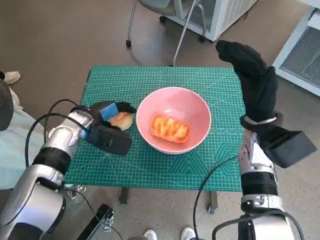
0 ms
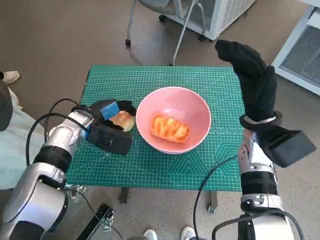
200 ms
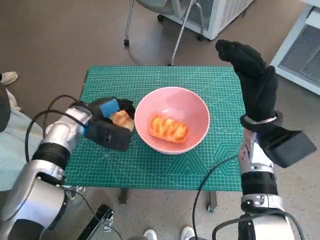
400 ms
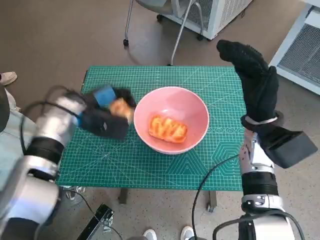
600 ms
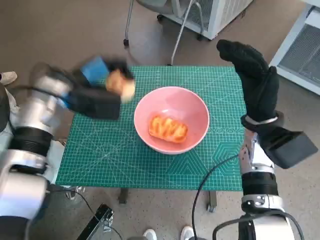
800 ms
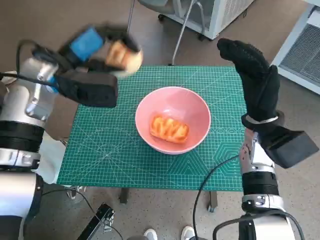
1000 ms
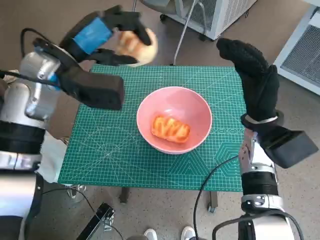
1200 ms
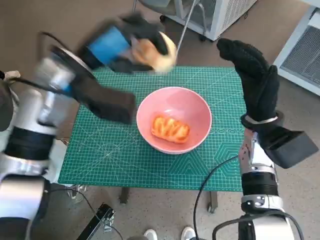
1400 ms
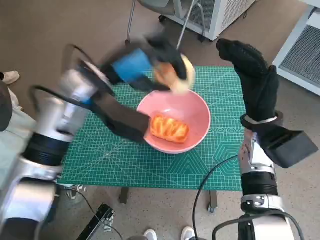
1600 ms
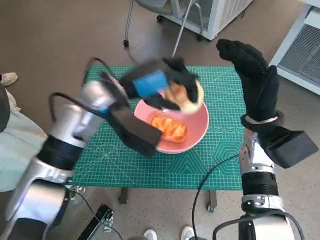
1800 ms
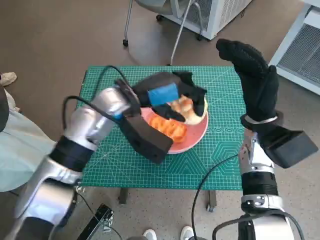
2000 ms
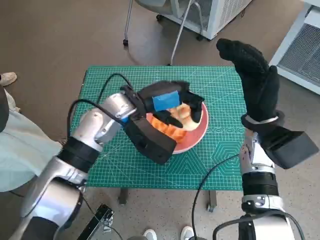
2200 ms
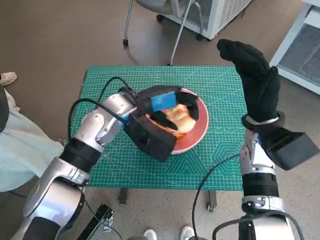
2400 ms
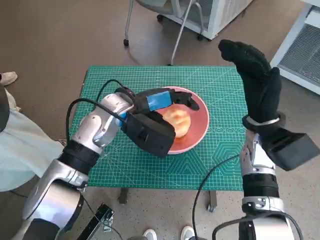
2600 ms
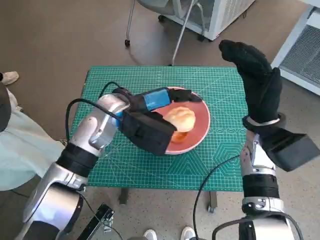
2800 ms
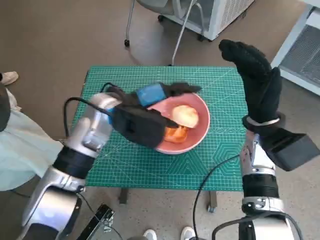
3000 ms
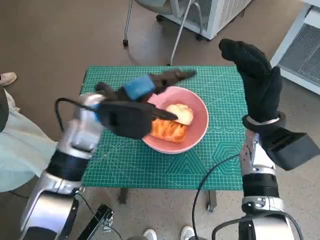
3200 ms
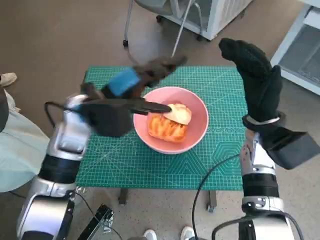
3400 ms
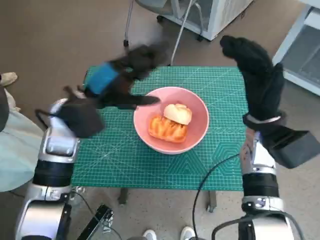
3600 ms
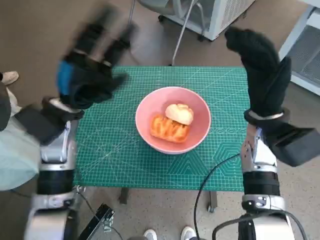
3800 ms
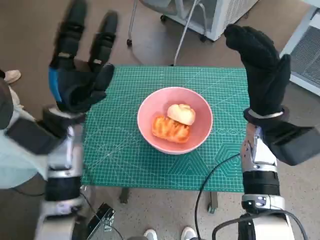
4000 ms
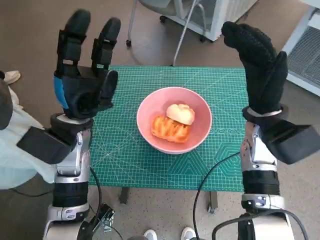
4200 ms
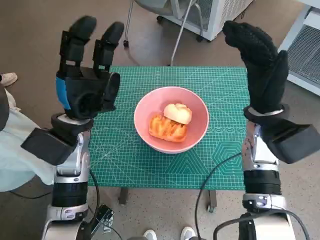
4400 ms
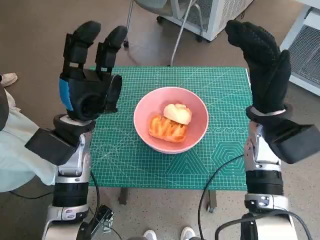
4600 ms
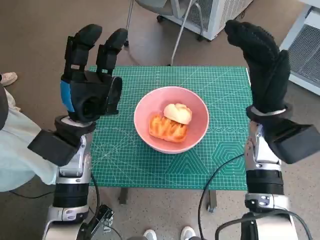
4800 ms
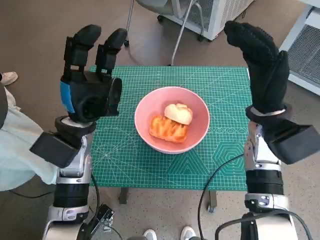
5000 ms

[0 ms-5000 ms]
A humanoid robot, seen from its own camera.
Task of the whole recording: Push the bowl to the center of the table and put the bread into the bowl.
Step, 0 ms to 3000 ms: Place the round bread in pink bowl with left hand.
0 ms to 1600 ms: The left hand shifts about 15 cm upward and to the right.
3400 ms to 5000 ms: The left hand moves about 5 cm.

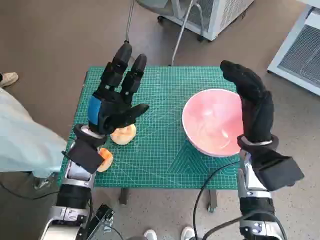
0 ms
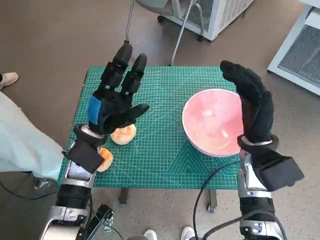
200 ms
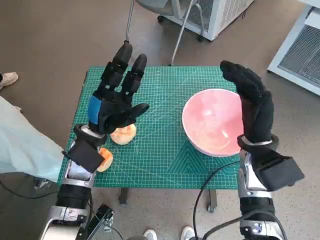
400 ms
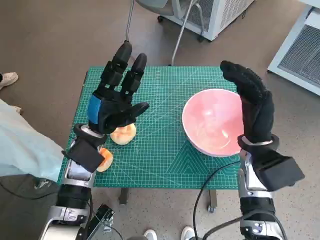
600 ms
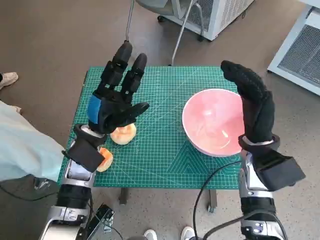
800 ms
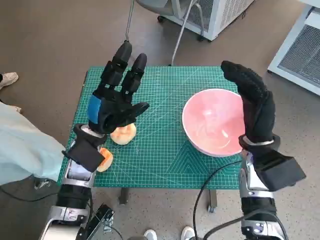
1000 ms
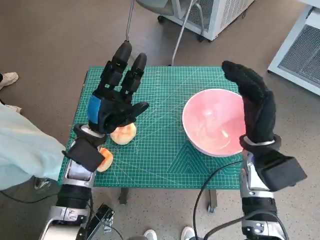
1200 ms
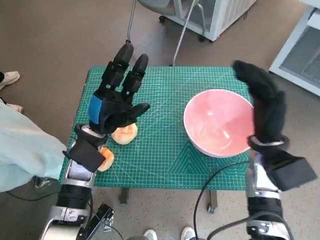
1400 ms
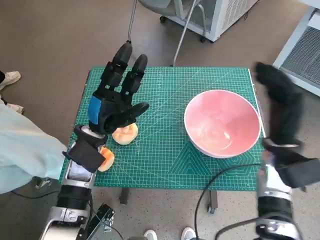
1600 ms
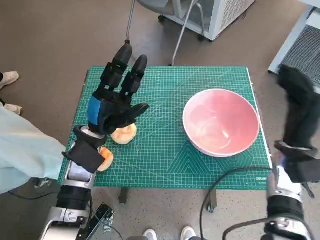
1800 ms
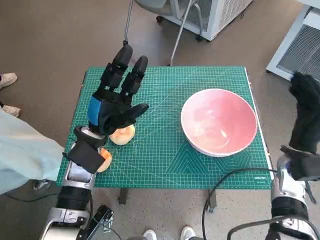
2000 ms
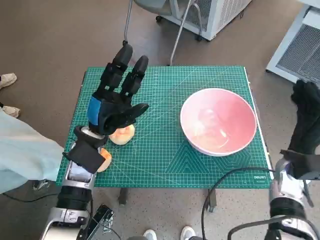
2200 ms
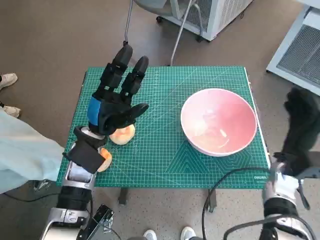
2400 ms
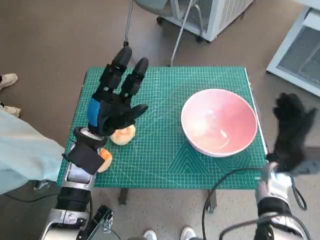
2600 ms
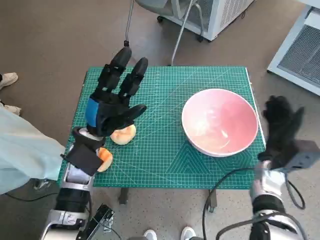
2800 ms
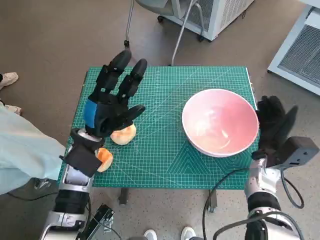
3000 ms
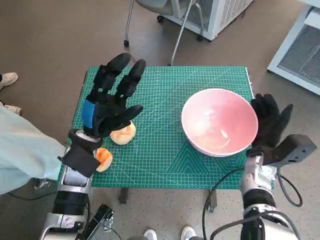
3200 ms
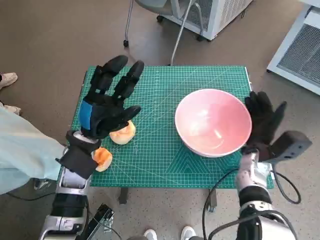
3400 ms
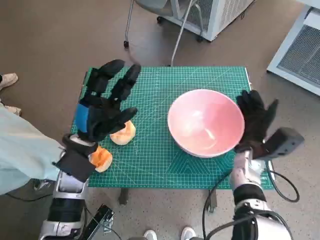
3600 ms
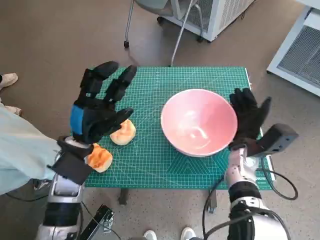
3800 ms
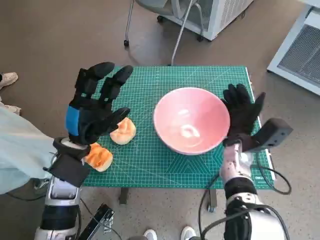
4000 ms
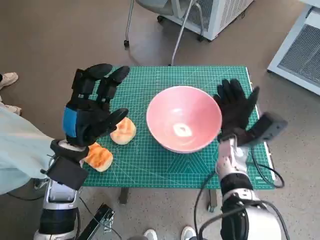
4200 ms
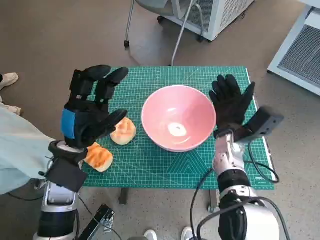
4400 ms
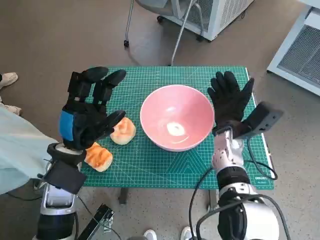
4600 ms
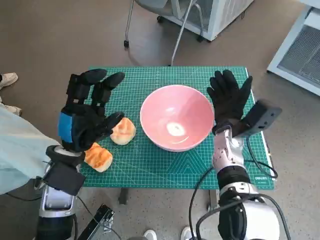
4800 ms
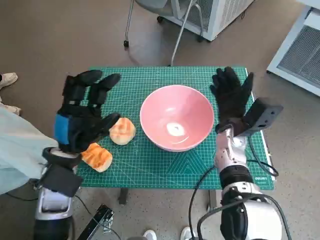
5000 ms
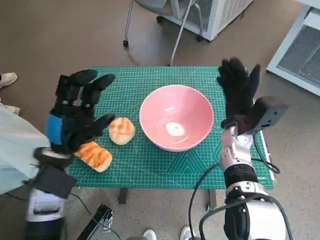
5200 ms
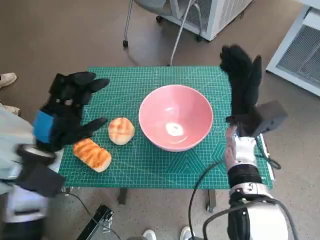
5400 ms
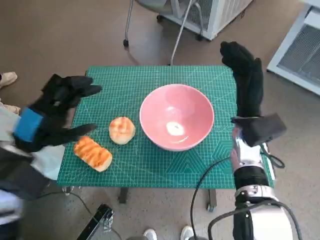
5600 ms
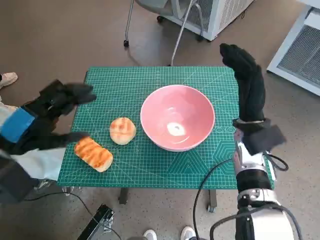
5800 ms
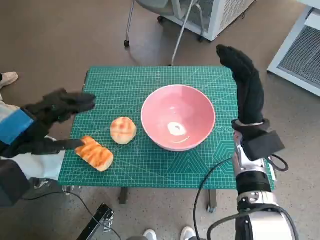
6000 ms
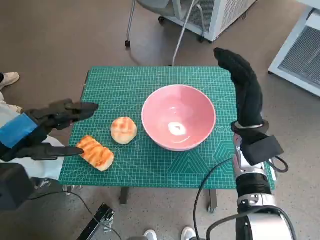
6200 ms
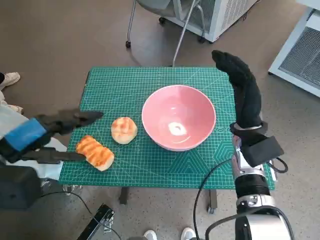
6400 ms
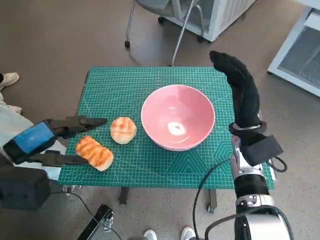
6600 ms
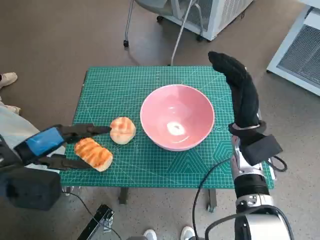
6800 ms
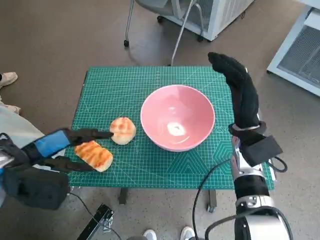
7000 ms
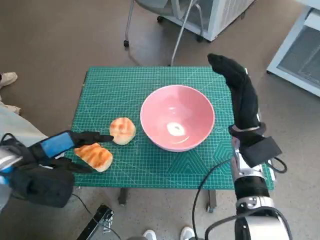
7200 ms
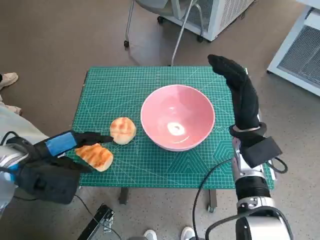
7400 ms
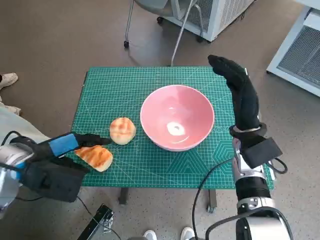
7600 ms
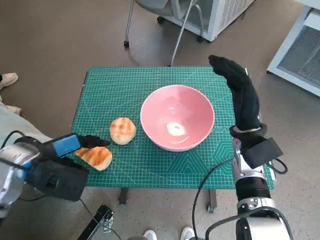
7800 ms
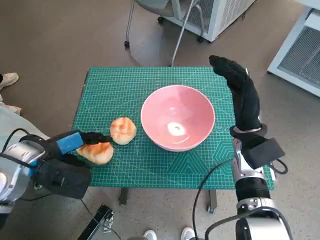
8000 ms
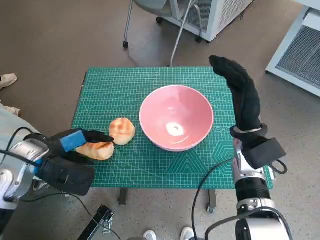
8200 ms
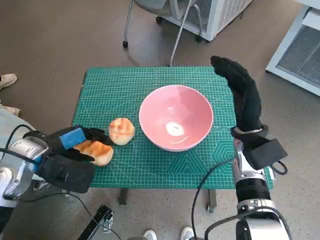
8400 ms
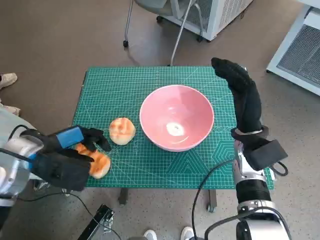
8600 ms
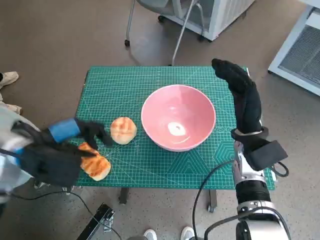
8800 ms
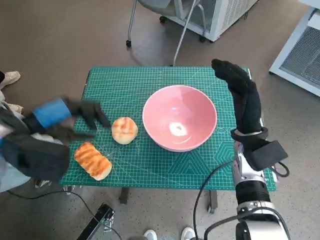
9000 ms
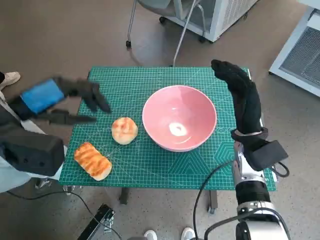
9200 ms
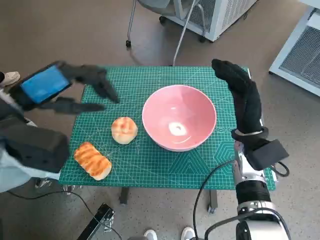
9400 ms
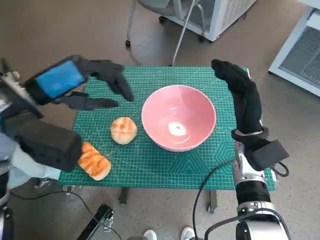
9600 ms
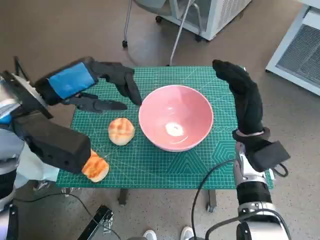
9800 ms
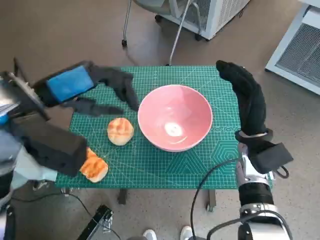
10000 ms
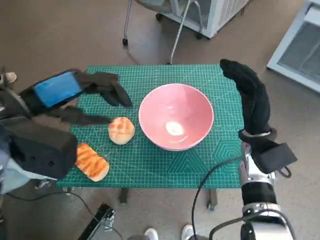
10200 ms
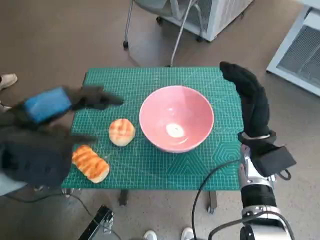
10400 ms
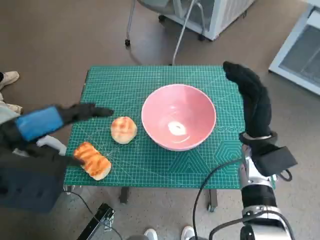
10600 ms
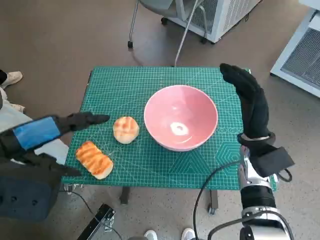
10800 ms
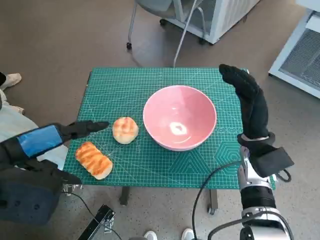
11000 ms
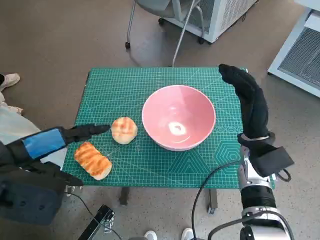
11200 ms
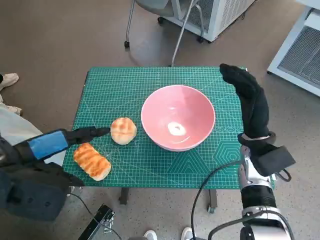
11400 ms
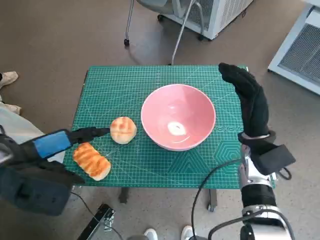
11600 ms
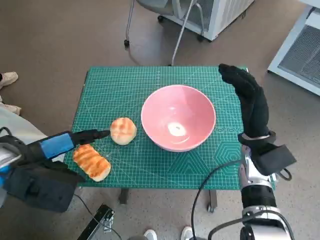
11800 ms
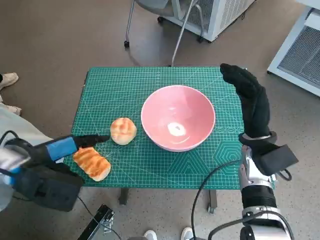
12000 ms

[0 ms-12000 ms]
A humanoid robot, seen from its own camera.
Task of the whole recording: Push the bowl to the center of the table and put the bread into the bowl.
Step, 0 ms to 5200 ms: Move the pink bowl to the center of table with right hand.
1600 ms to 3000 ms: The right hand heads downward, covering about 10 cm.
3000 ms to 4400 ms: The right hand travels to the left by approximately 10 cm.
4400 ms to 6000 ms: The left hand shifts about 10 cm to the left and upward, while the right hand is displaced upward by about 5 cm.
6000 ms to 7600 ms: The left hand changes place by about 5 cm.
7600 ms to 9000 ms: The hands make only small movements.
9000 ms to 10400 ms: The left hand moves upward, roughly 5 cm.
10400 ms to 12000 ms: The left hand goes roughly 10 cm downward.

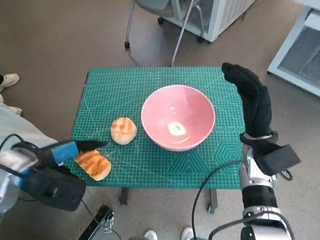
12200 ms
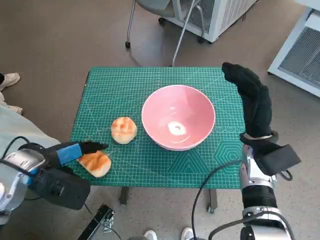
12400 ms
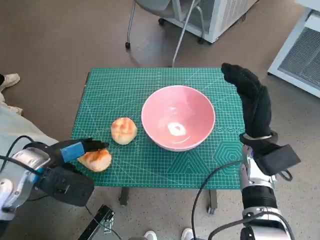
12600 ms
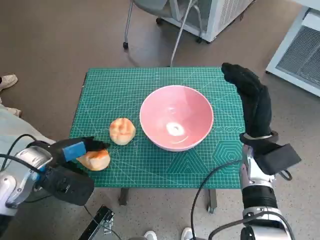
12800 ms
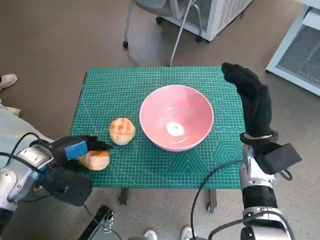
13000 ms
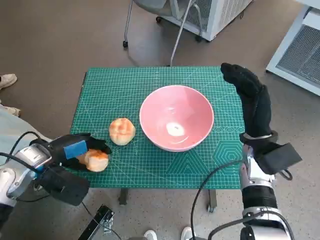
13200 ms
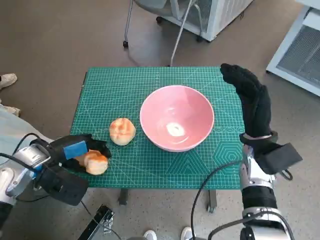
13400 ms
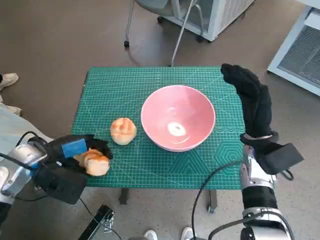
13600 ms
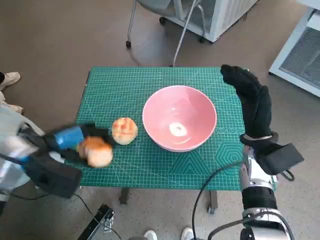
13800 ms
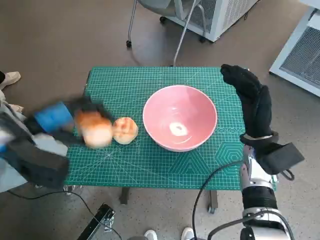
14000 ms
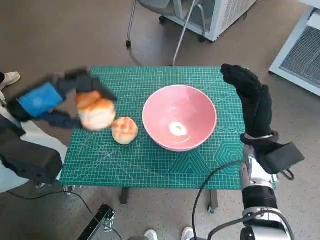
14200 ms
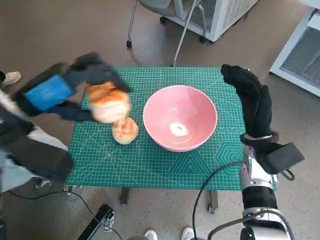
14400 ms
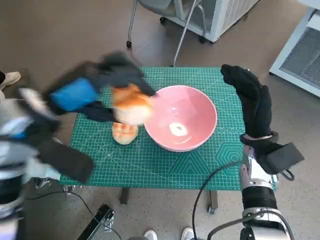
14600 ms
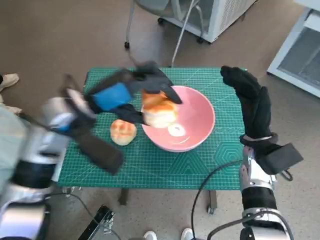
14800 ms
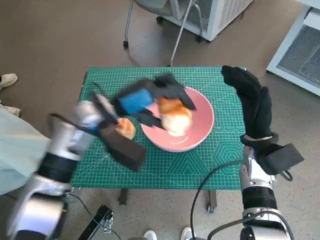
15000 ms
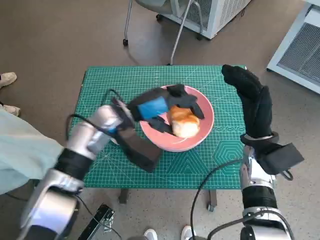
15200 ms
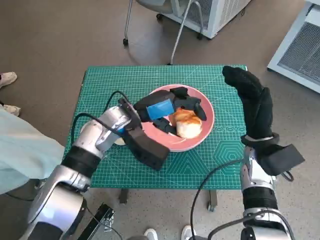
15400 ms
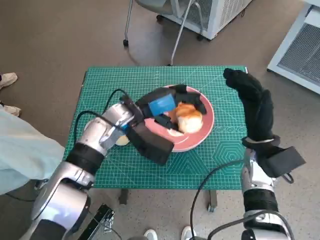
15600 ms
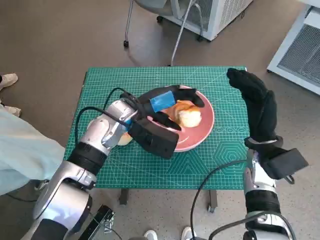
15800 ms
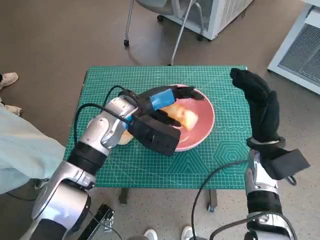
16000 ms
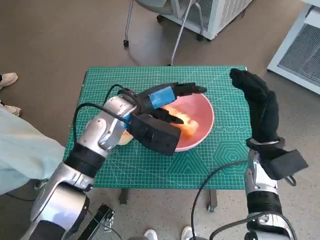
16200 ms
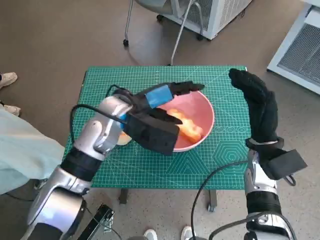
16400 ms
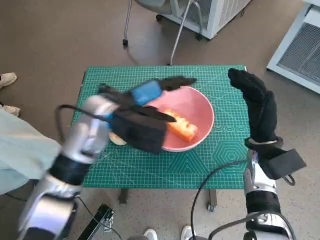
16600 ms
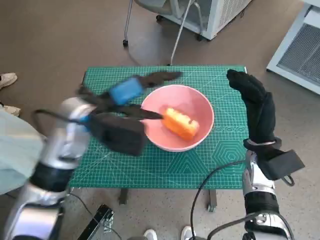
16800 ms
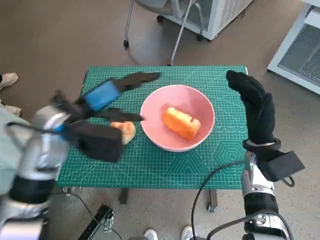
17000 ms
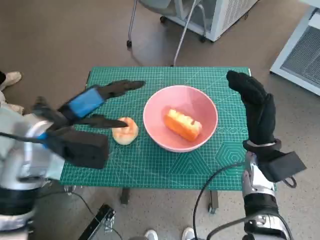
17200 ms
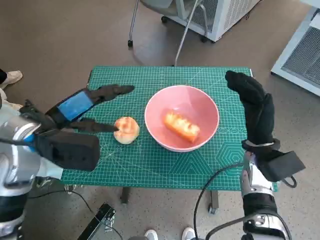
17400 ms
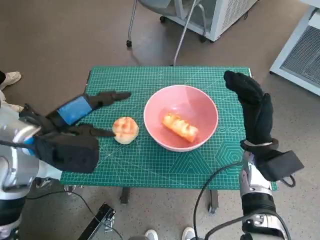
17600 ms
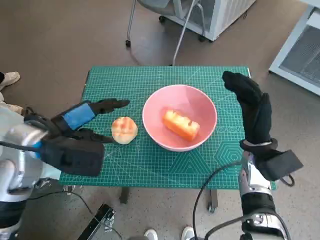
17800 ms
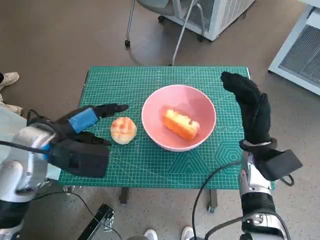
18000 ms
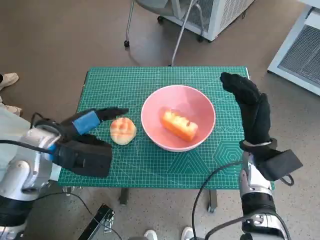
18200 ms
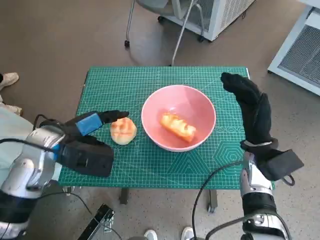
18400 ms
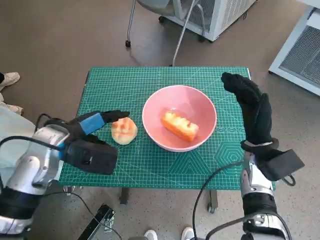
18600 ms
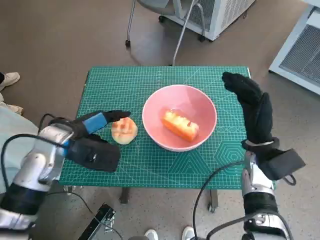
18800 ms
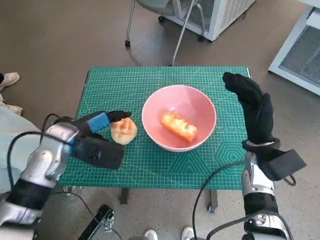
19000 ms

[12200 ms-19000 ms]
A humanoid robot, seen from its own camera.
Task of the whole recording: Push the bowl to the center of the table and put the bread into the bowl.
Step, 13200 ms to 16200 ms: Place the long bread in pink bowl with left hand.
12200 ms to 13600 ms: The left hand changes place by roughly 5 cm.
13600 ms to 15000 ms: The left hand moves to the right, upward and forward, roughly 15 cm.
15000 ms to 16200 ms: The left hand goes about 5 cm to the right.
16200 ms to 17600 ms: The left hand moves to the left and backward, some 15 cm.
17600 ms to 19000 ms: The left hand shifts roughly 5 cm downward.
